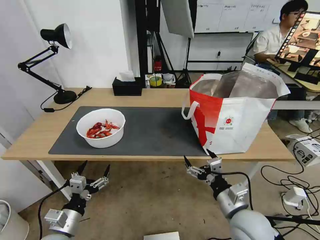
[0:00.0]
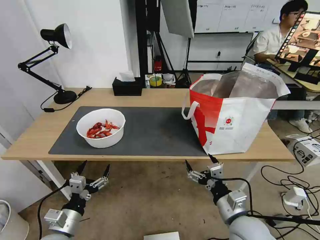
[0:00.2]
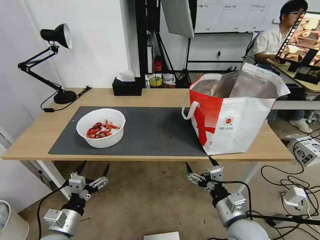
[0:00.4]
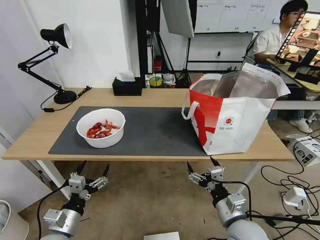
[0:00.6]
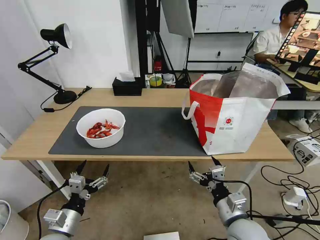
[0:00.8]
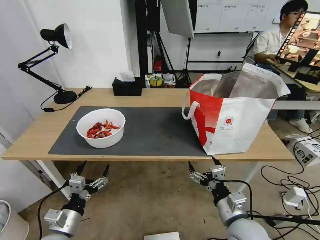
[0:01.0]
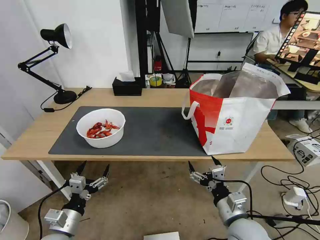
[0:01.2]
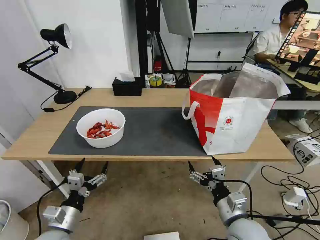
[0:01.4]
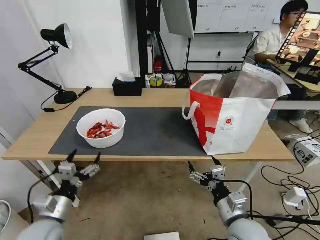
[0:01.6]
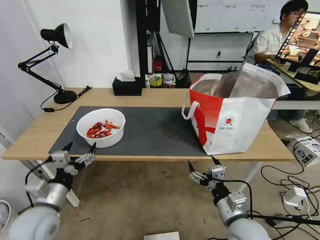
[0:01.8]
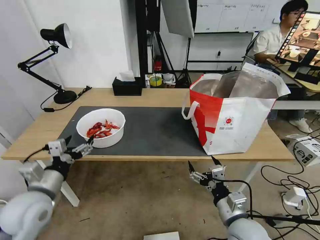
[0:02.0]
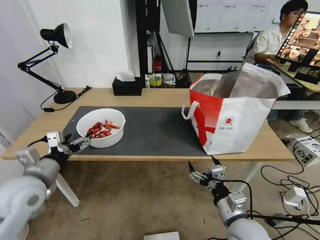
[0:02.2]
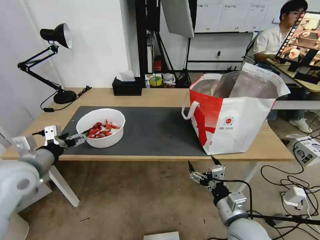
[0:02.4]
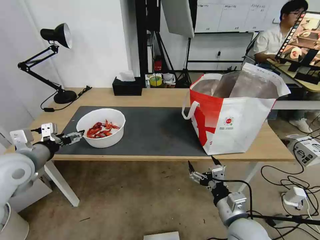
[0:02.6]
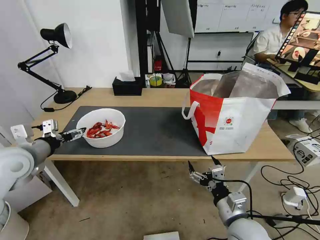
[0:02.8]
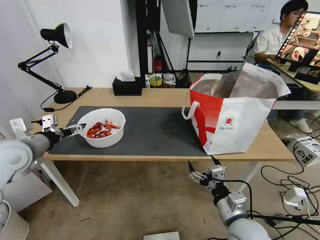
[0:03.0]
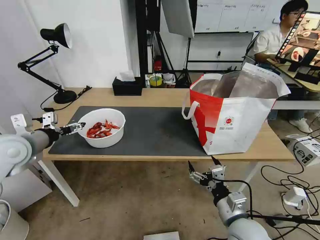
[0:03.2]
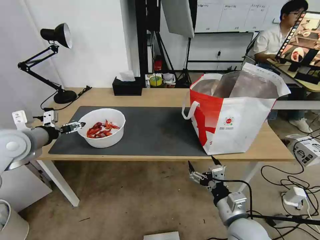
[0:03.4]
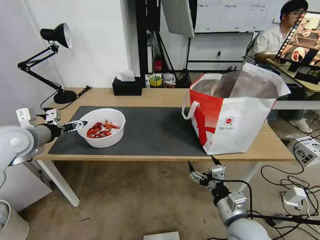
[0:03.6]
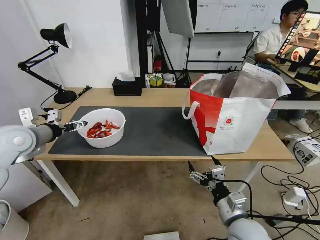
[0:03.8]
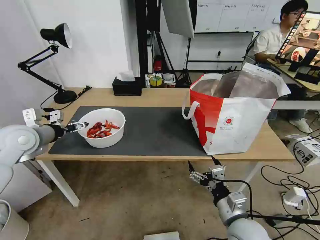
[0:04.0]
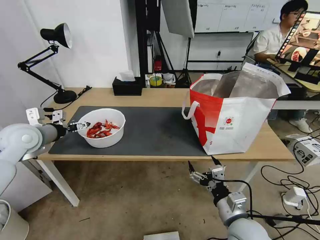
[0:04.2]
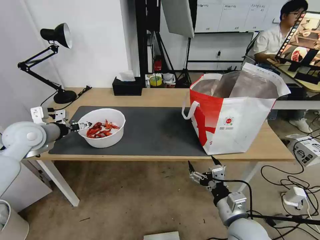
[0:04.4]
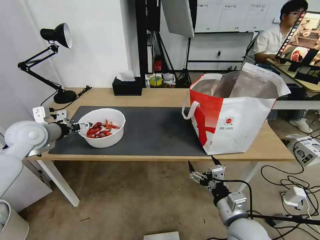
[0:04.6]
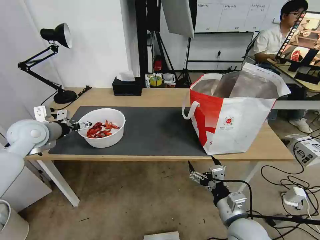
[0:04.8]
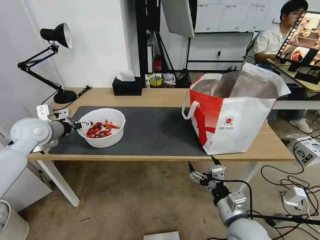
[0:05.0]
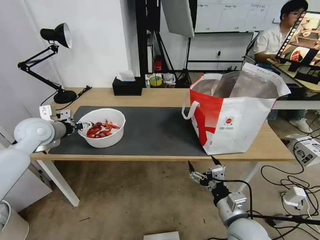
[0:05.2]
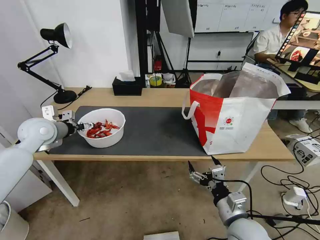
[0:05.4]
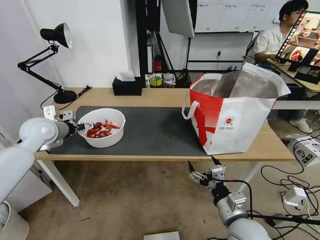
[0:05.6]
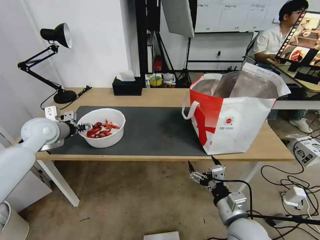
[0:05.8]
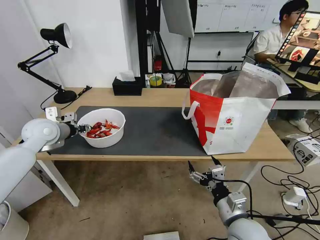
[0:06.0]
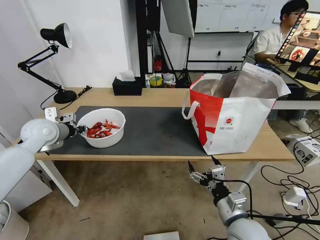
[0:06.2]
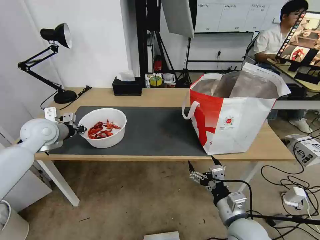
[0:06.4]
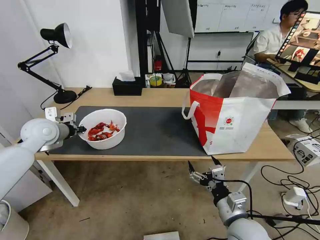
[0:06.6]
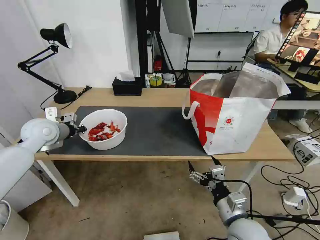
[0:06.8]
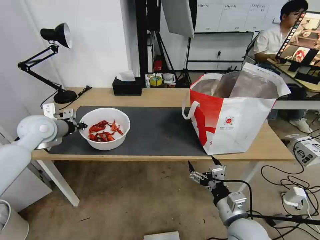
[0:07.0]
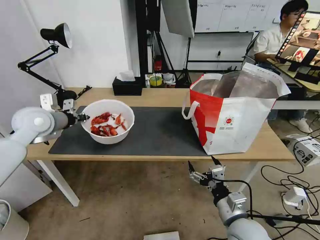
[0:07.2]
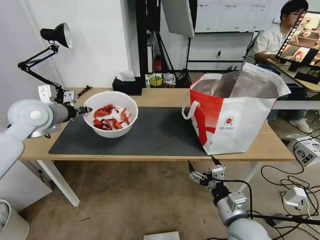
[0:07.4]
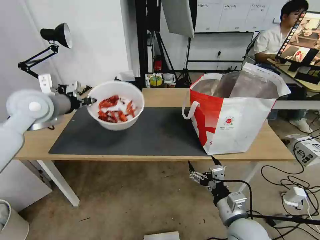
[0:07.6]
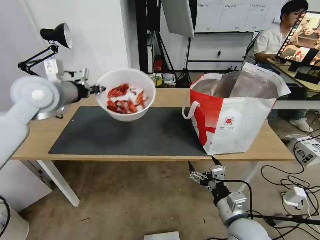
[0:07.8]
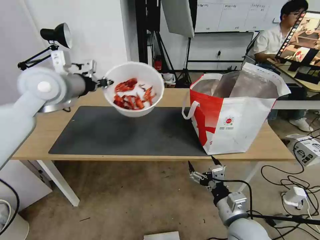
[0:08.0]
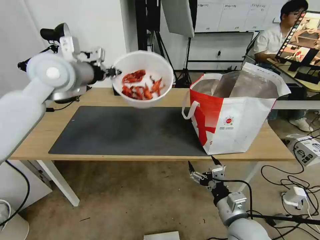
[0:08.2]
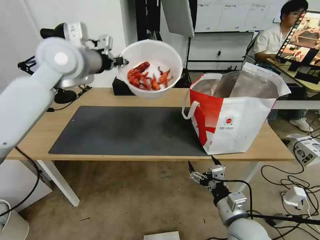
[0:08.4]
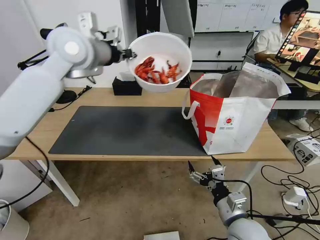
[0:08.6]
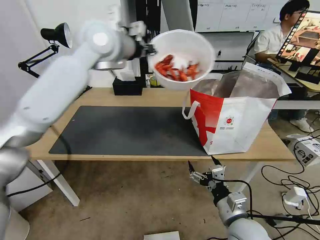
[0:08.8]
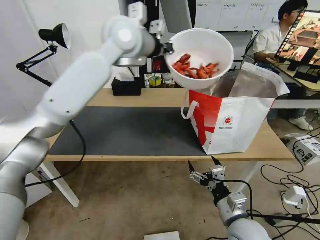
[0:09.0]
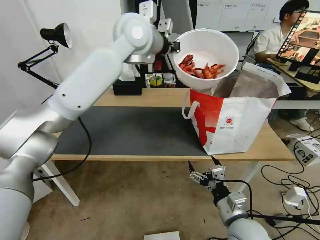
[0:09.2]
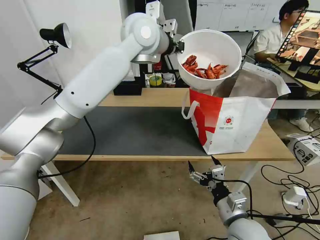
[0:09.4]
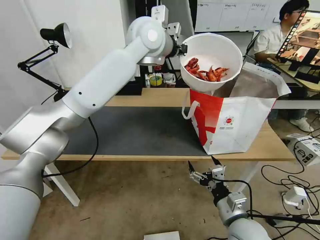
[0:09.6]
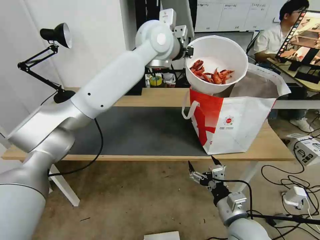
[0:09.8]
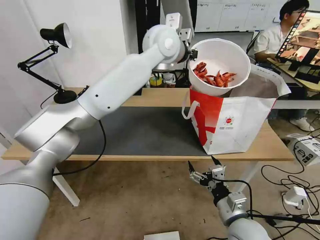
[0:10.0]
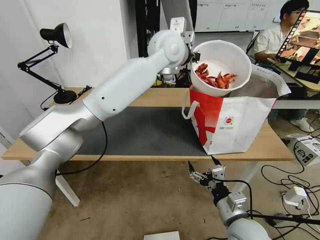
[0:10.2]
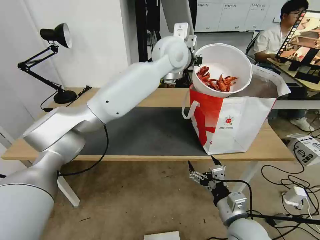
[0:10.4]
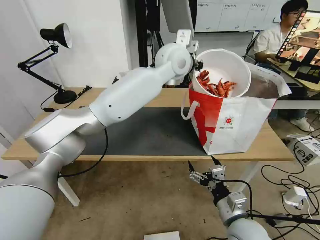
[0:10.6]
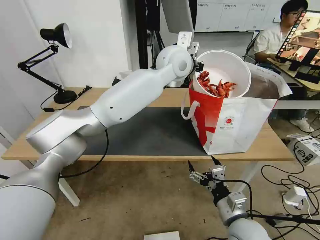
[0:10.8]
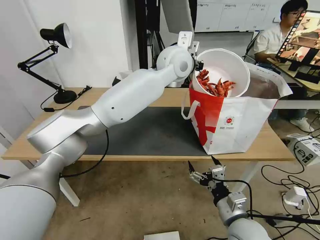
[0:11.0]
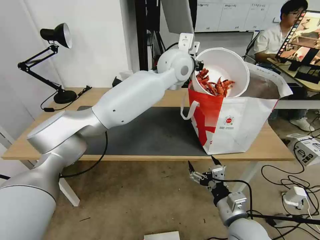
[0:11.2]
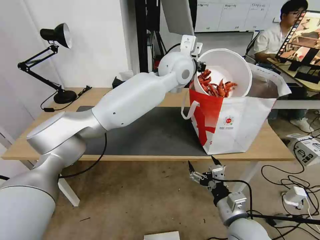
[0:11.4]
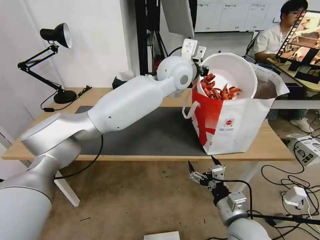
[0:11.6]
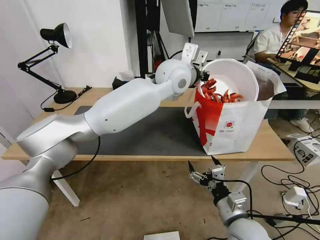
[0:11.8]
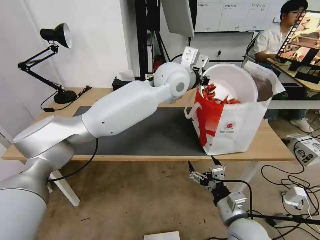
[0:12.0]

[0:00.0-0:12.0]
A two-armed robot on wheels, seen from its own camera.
Task of the whole recording: Pick up the trash from the table and place it into the takeout bag.
0:00.0 to 0:01.6: The grippers make only small movements.
0:01.6 to 0:03.0: The left gripper moves upward, forward and to the left, roughly 25 cm.
0:03.0 to 0:04.4: The left gripper goes approximately 5 cm forward.
0:04.4 to 0:06.0: The left gripper closes its fingers.
0:06.0 to 0:07.6: The left gripper travels upward by approximately 10 cm, and closes.
0:07.6 to 0:09.0: The left gripper shifts approximately 30 cm to the right and upward.
0:09.0 to 0:10.4: The left gripper goes about 10 cm to the right.
0:10.4 to 0:12.0: The left gripper moves some 5 cm.

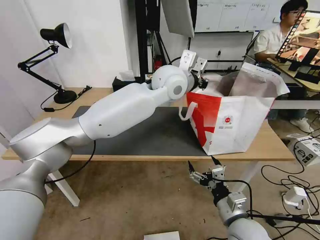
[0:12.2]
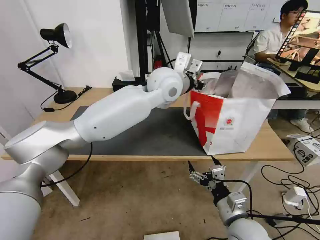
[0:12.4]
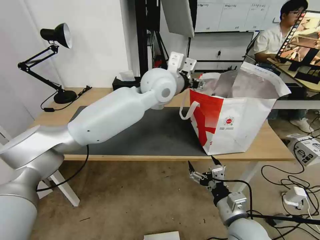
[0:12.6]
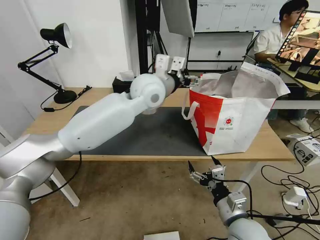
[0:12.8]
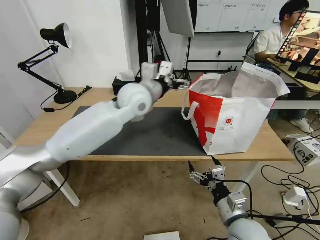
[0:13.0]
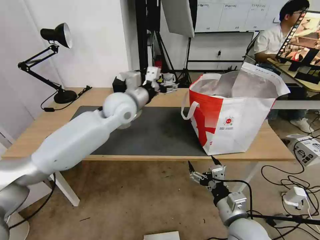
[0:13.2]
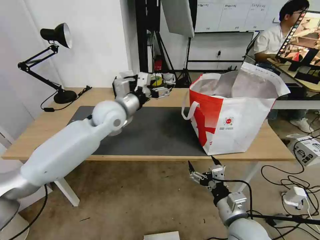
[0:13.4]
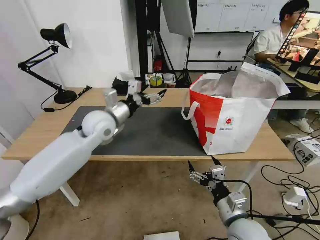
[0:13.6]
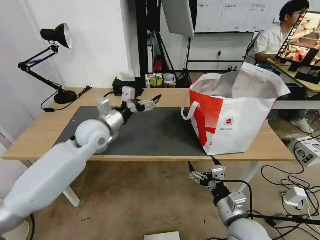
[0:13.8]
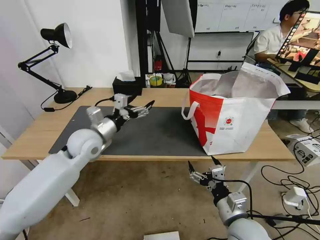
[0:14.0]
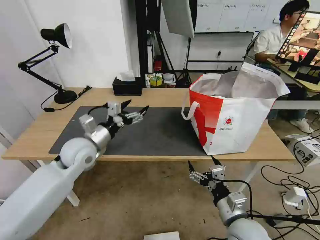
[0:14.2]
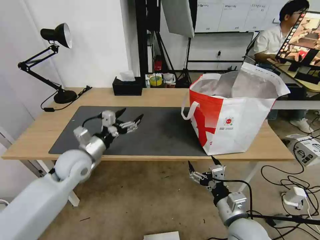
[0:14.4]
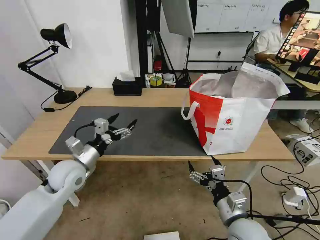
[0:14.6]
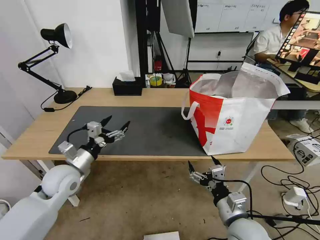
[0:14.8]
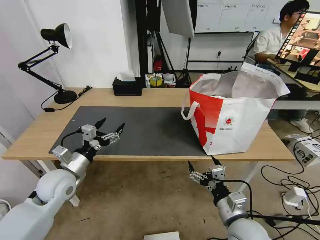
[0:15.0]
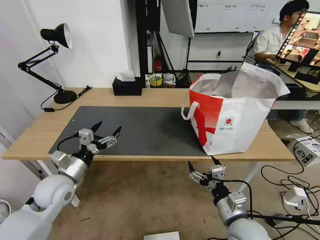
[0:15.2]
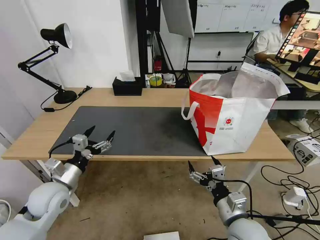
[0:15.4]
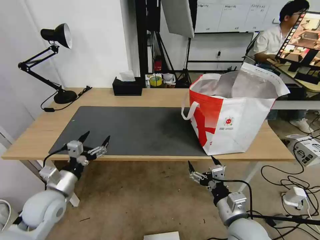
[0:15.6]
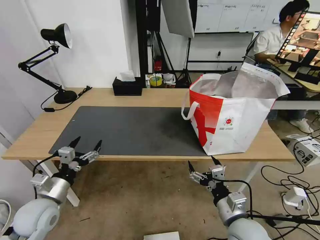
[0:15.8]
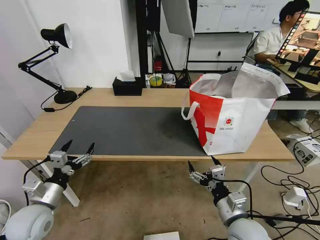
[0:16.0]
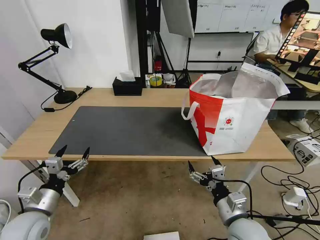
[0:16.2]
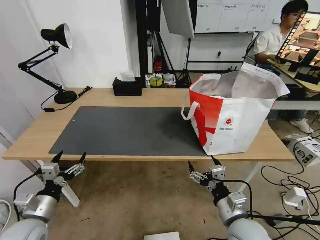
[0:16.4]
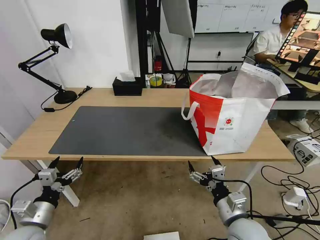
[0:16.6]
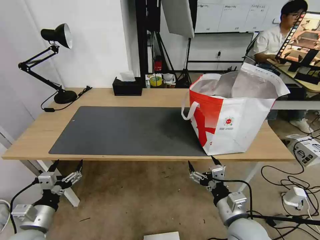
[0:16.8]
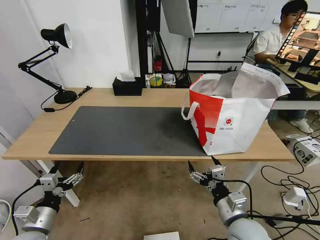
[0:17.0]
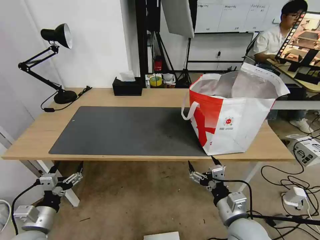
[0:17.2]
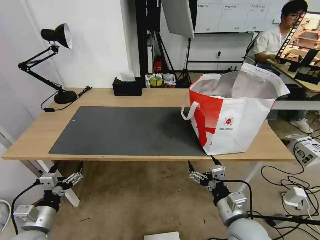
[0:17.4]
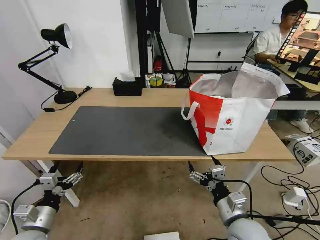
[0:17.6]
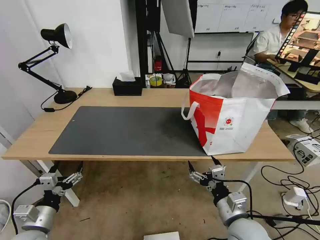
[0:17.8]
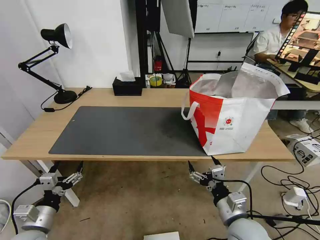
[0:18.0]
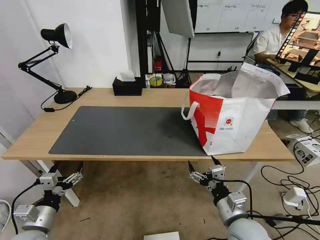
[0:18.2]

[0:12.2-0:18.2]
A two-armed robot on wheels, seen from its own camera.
Task of the whole recording: Pick up the trash from the table and place it into the takeout bag.
0:12.2 to 0:13.8: The left gripper is displaced to the left and downward by roughly 25 cm, and opens up.
0:13.8 to 0:15.2: The left gripper travels backward, downward and to the left by some 20 cm.
0:15.2 to 0:16.6: The left gripper is displaced backward, downward and to the left by roughly 15 cm.
0:16.6 to 0:18.2: The grippers stay close to where they were, moving slightly.

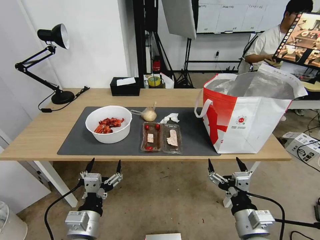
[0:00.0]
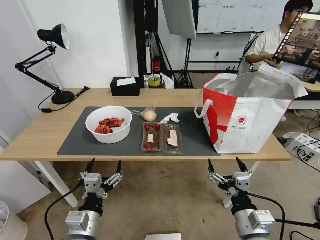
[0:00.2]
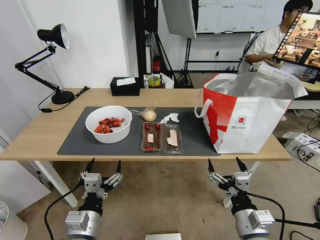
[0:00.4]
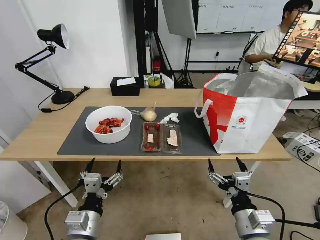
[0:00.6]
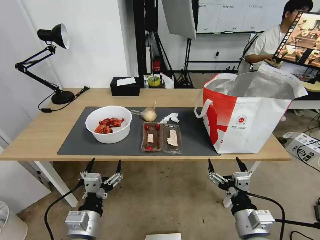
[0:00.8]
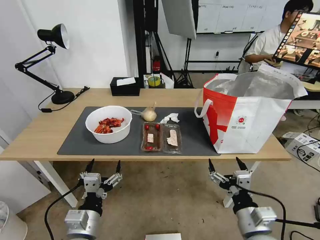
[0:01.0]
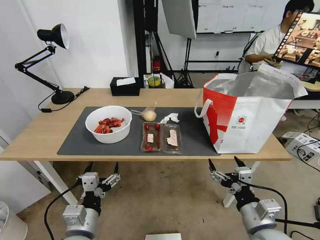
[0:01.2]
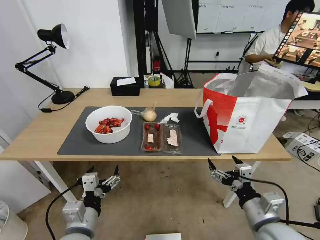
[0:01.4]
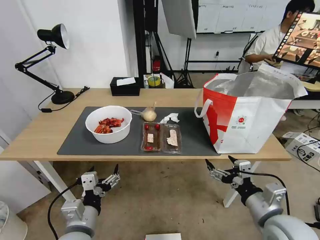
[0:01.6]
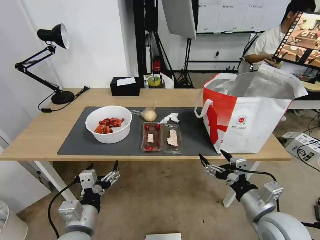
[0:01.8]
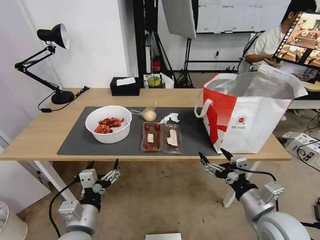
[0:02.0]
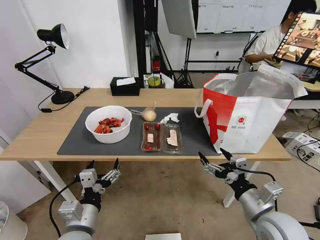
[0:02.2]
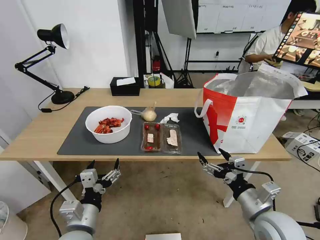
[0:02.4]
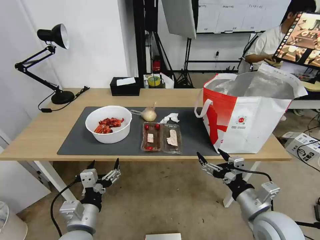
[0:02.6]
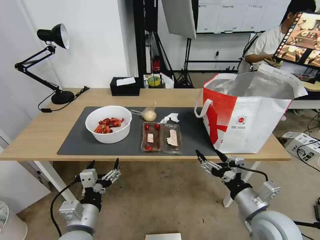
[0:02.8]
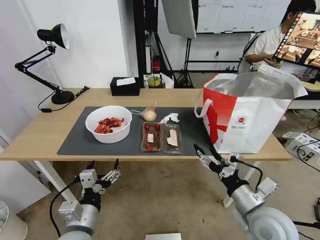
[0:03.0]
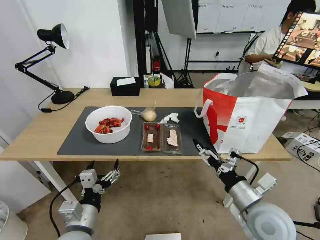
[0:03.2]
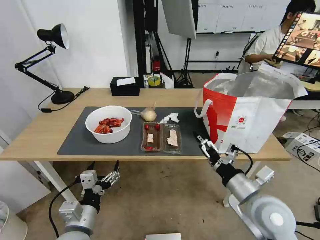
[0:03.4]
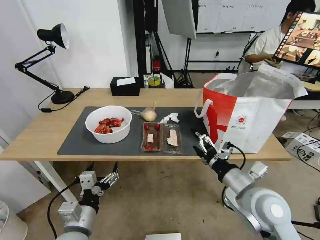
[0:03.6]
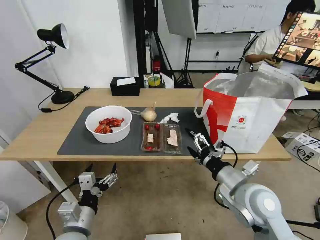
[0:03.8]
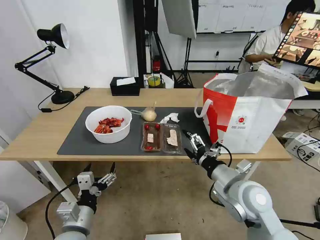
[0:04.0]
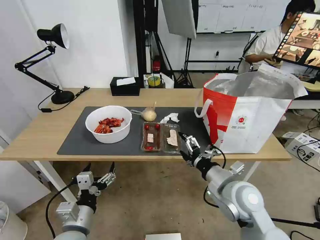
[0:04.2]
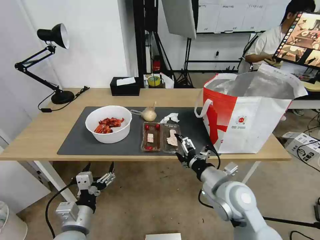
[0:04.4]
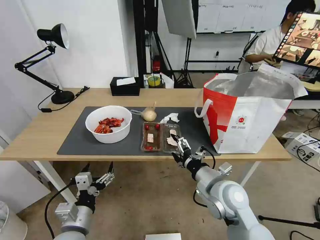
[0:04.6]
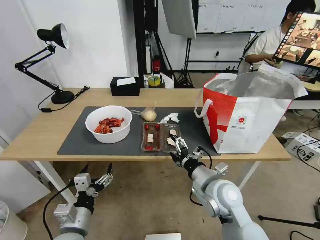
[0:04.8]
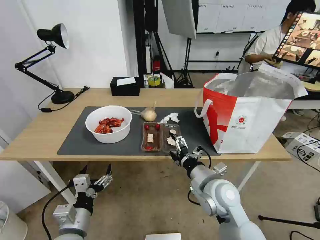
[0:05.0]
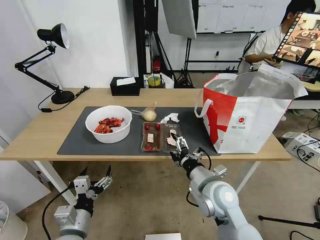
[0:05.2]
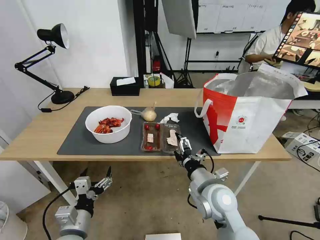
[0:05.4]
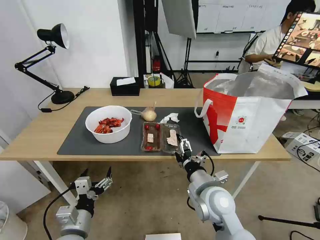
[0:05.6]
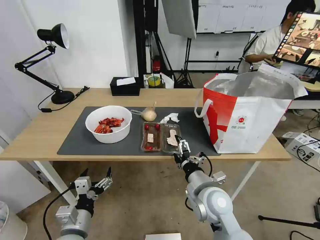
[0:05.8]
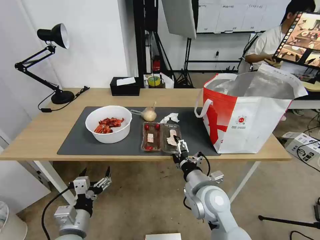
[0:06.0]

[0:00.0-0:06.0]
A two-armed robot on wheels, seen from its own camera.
Task of the whole recording: Pick up the trash from the table and place it into the takeout bag.
0:03.0 to 0:04.4: The right gripper heads to the left and forward, covering approximately 10 cm.
0:04.4 to 0:06.0: The right gripper shifts some 5 cm to the left.
